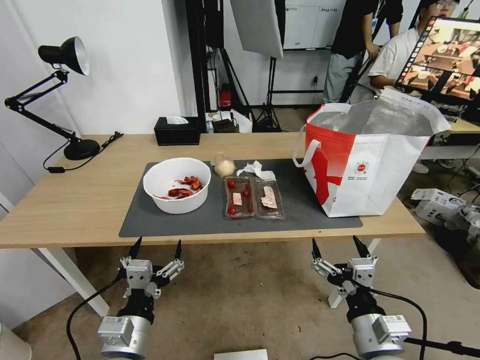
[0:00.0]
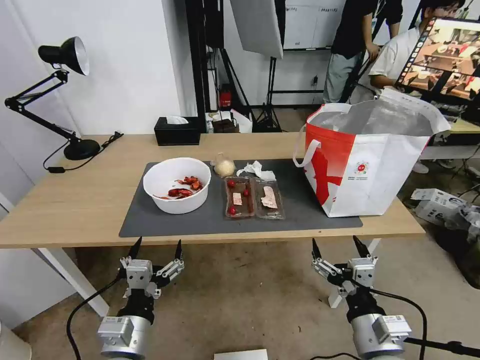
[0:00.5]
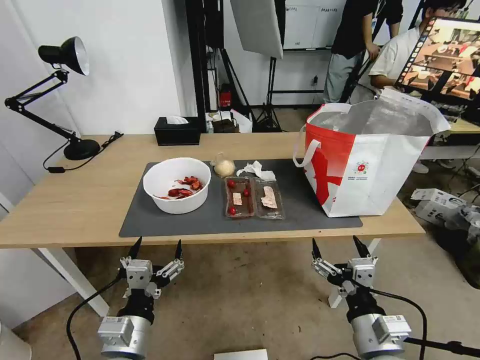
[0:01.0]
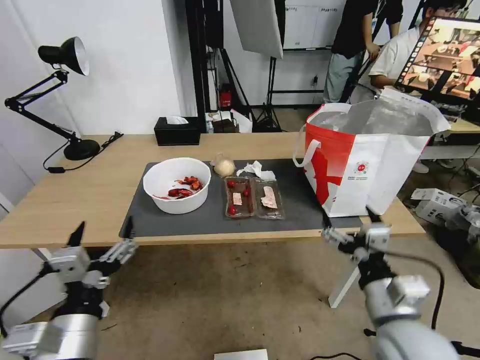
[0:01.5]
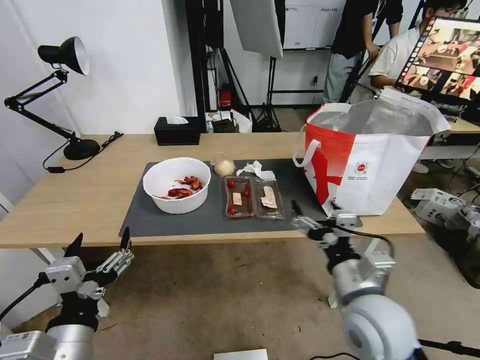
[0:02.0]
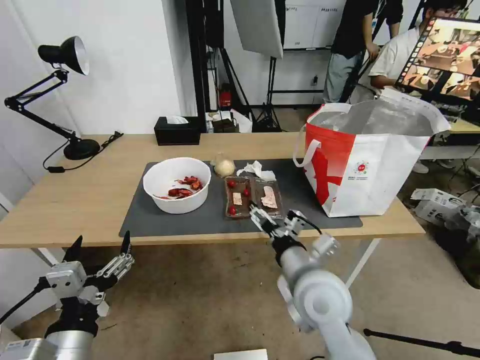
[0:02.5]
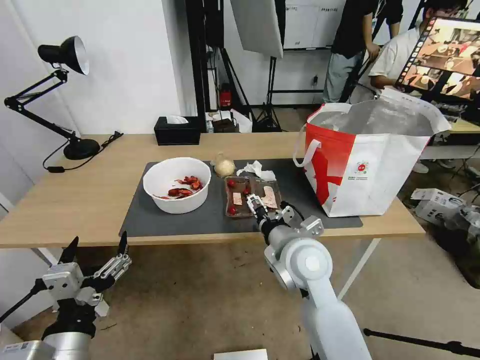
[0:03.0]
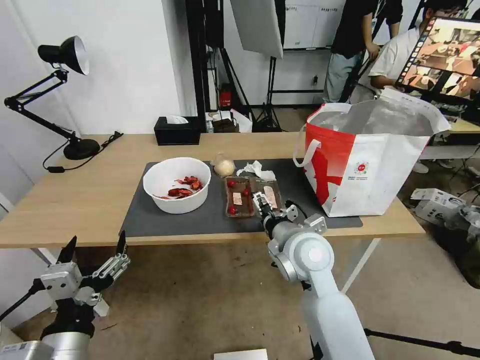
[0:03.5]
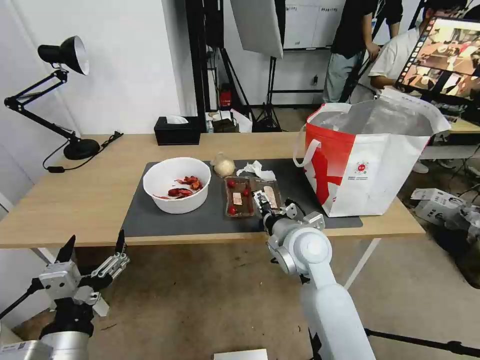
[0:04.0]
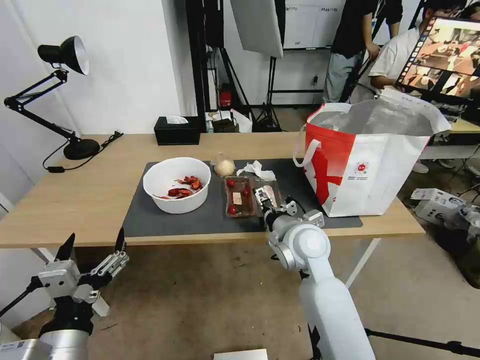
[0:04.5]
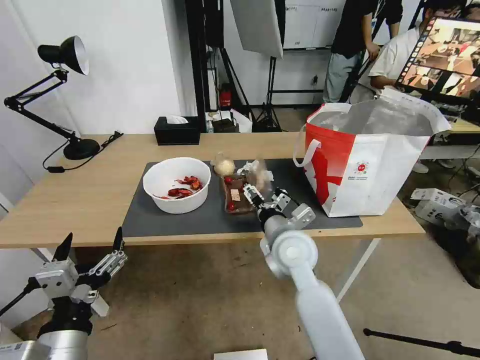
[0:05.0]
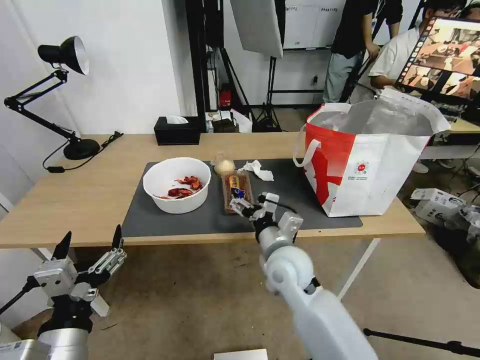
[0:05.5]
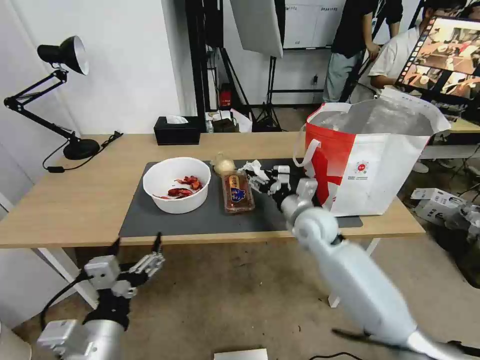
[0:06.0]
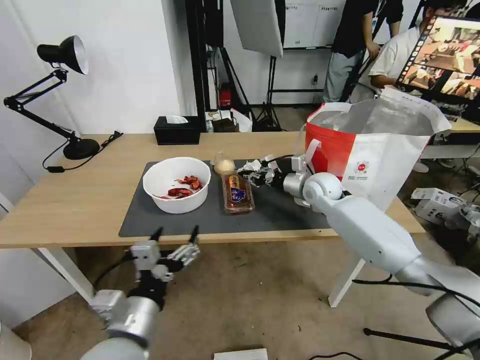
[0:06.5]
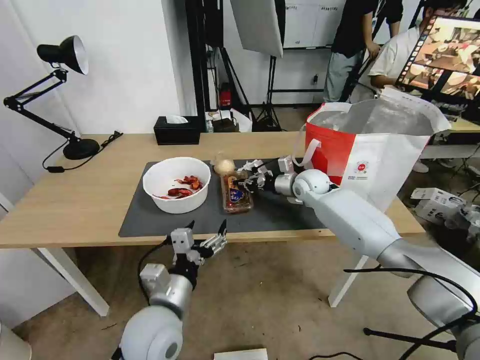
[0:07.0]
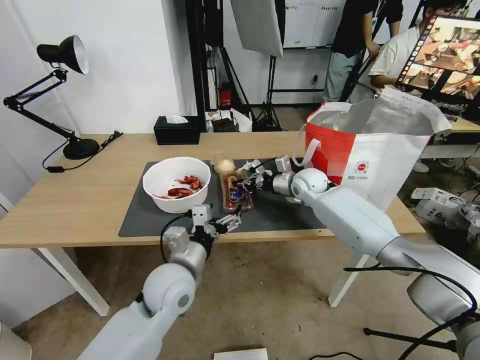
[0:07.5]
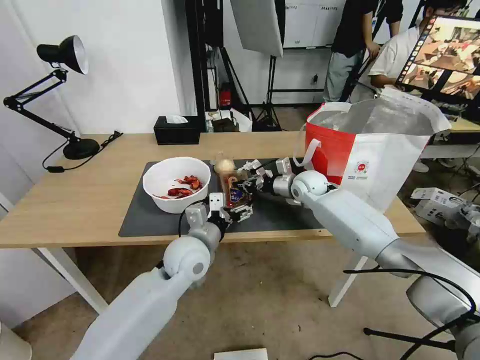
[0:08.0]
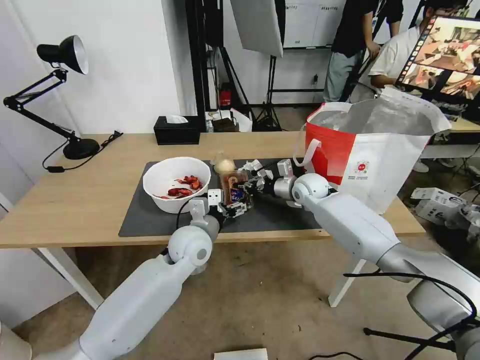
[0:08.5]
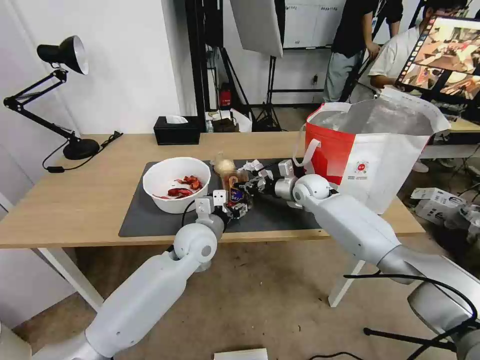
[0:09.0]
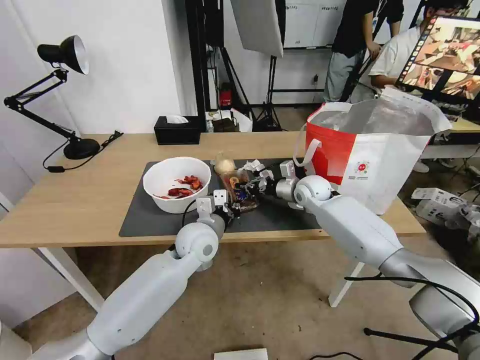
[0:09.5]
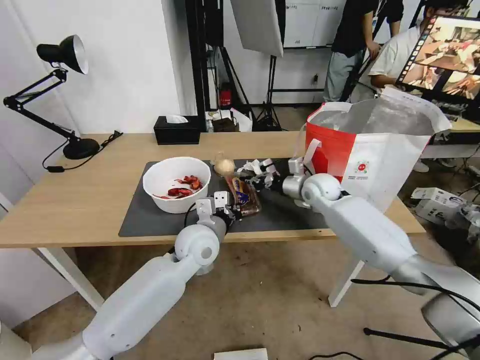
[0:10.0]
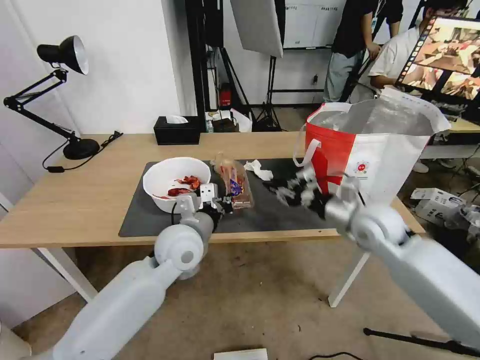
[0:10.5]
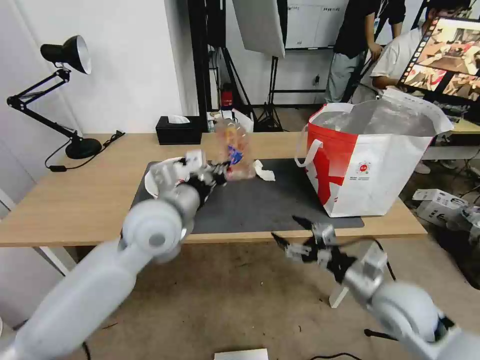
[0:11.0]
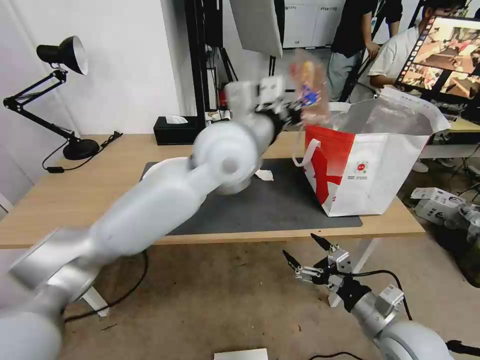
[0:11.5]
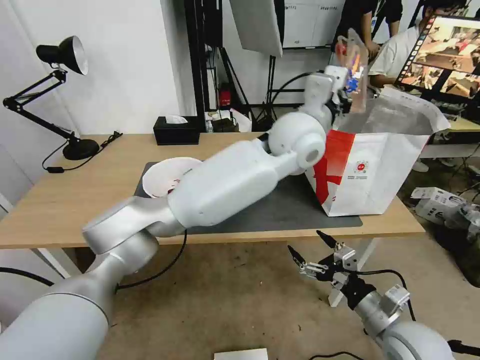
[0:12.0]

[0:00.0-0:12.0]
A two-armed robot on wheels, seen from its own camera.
Task of the whole recording: Pick up the trash from the table and place it into the takeout bag.
0:02.0 to 0:04.0: The right gripper moves forward and to the left, some 15 cm.
0:04.0 to 0:06.0: The right gripper is displaced forward by approximately 10 cm.
0:06.0 to 0:08.0: The left gripper is displaced forward and to the right by some 25 cm. The right gripper is displaced forward by approximately 15 cm, and closes up.
0:08.0 to 0:10.0: The left gripper closes.
0:10.0 to 0:12.0: The right gripper goes about 35 cm backward, and opens. The left gripper heads upward and to the right, covering roughly 30 cm.

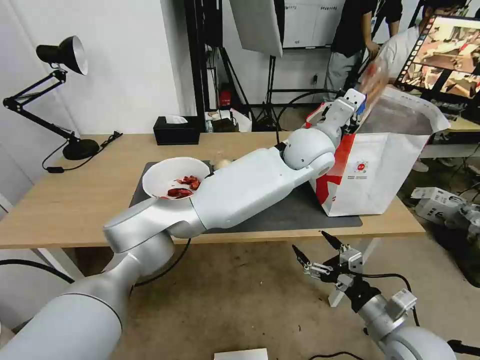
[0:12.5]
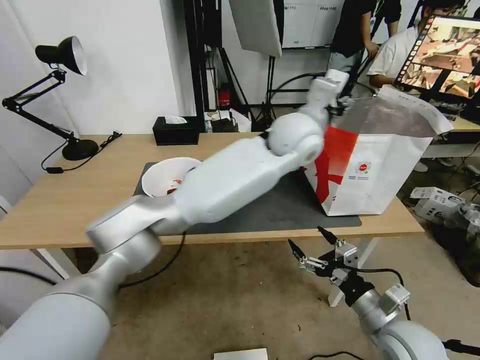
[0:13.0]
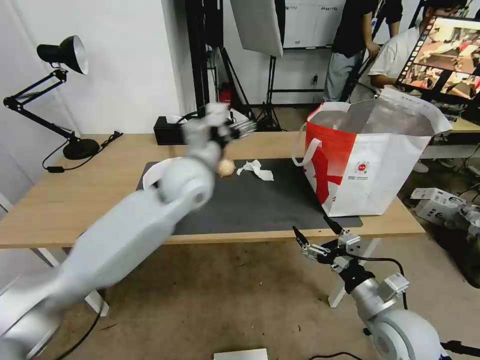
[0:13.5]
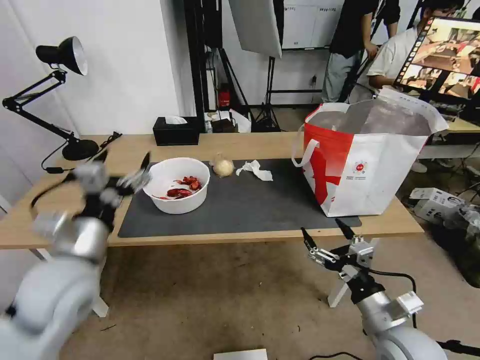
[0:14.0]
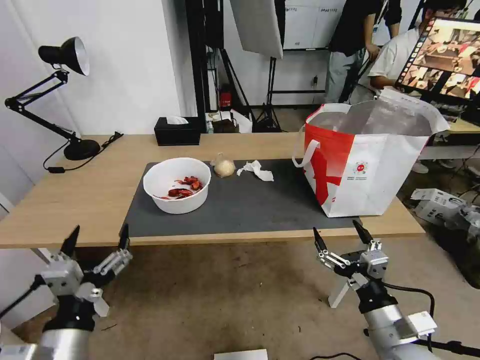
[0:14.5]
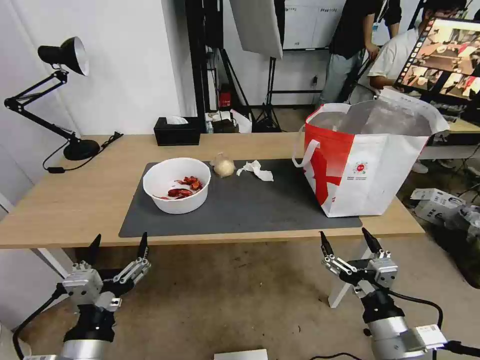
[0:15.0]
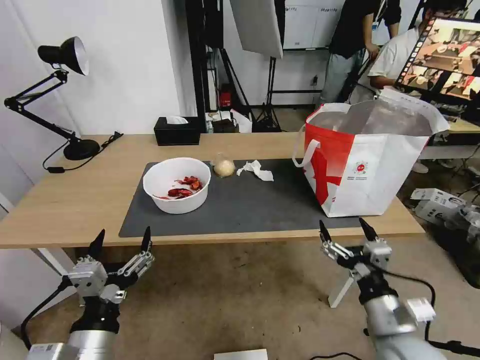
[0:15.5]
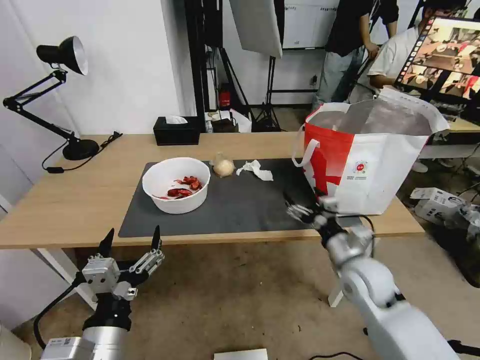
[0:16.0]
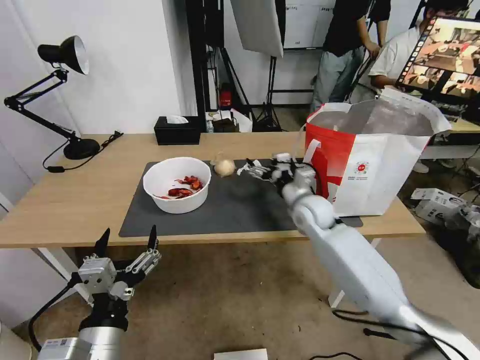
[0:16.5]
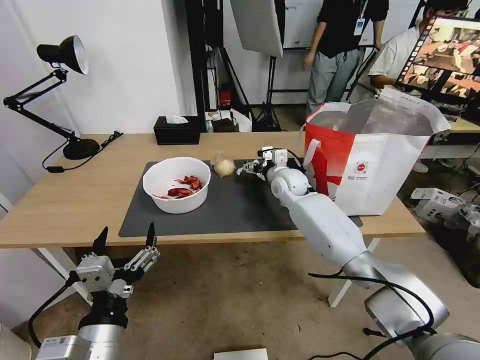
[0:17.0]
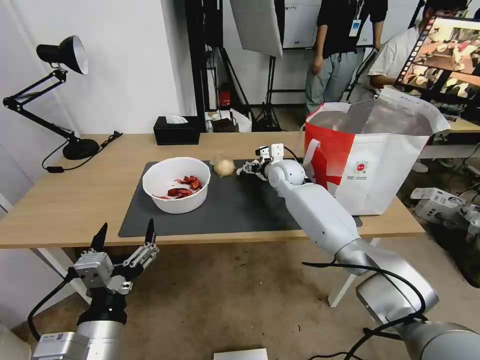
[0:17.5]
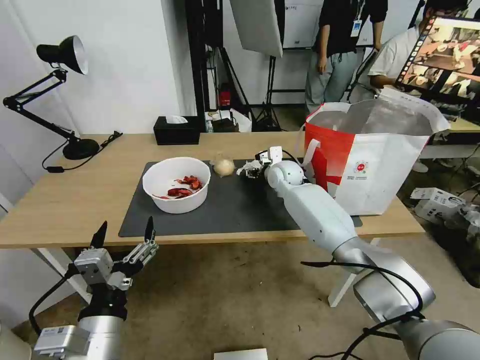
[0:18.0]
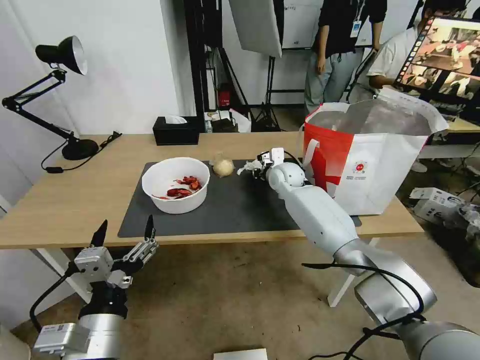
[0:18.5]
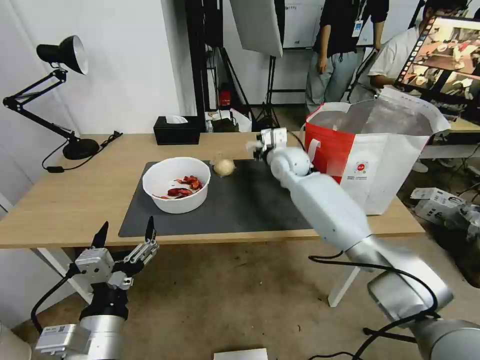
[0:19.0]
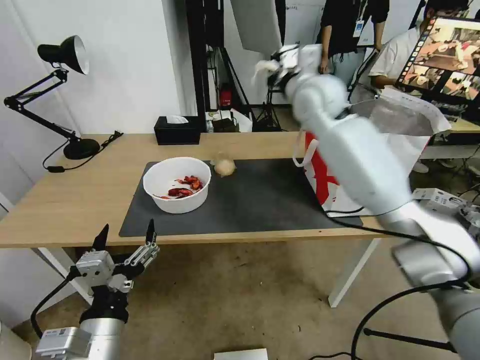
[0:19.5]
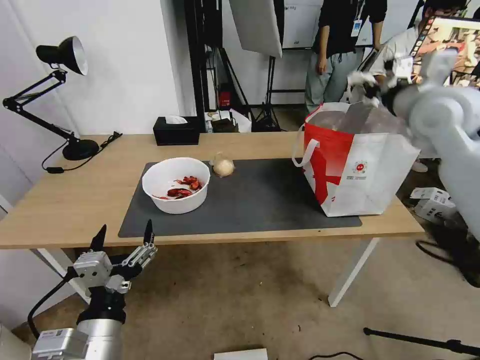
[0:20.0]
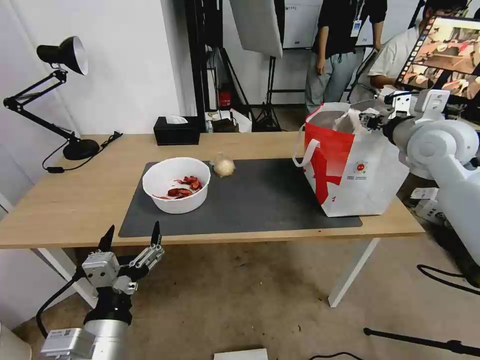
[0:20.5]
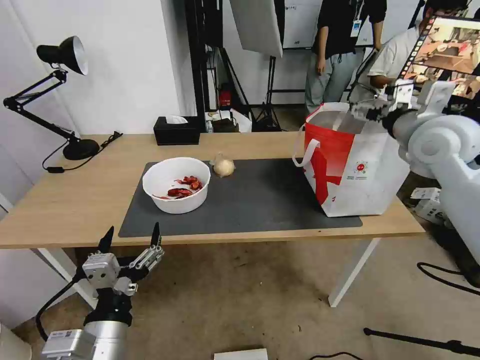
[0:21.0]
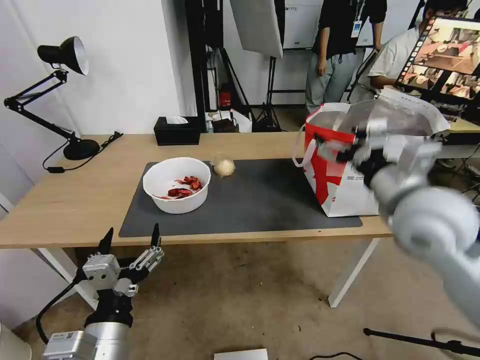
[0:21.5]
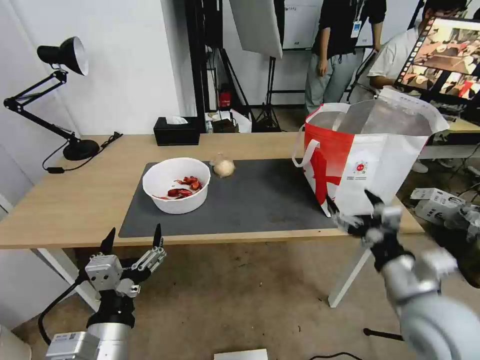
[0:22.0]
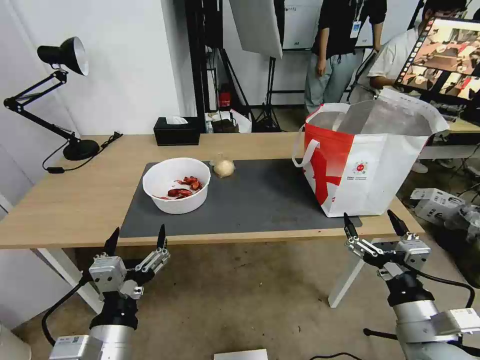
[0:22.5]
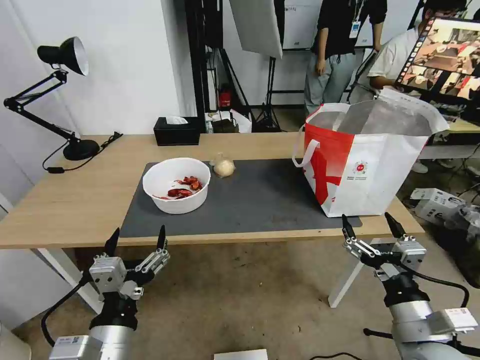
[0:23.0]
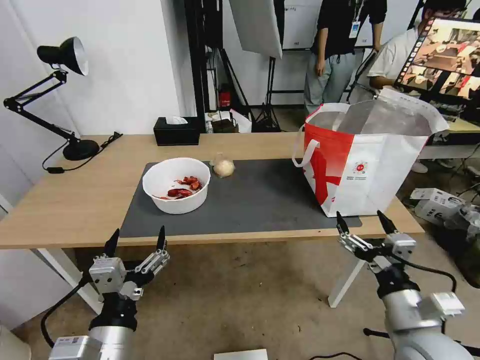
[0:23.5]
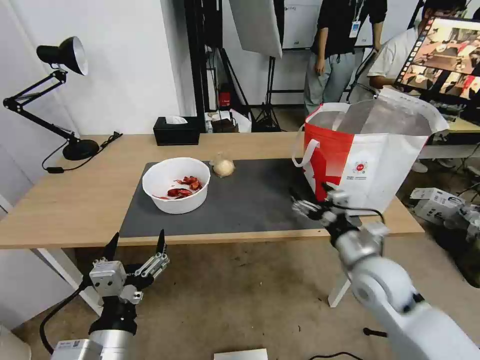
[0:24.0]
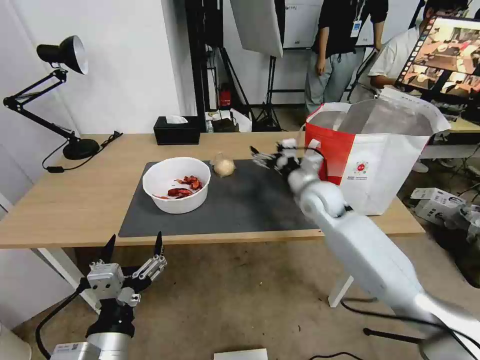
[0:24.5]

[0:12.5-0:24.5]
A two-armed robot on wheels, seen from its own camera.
Task of the whole recording: Pick up the trash from the table and place it into the takeout bag.
0:12.5 to 0:14.5: The left gripper moves to the left, backward and downward, some 60 cm, and opens up.
0:14.5 to 0:16.5: The left gripper shifts some 5 cm to the right, while the right gripper moves forward, some 35 cm.
0:16.5 to 0:18.5: The right gripper travels forward by about 10 cm, and closes its fingers.
0:18.5 to 0:20.5: The right gripper moves to the right, upward and backward, some 35 cm.
0:20.5 to 0:22.5: The right gripper moves backward and downward, about 35 cm, and opens.
0:22.5 to 0:24.5: The right gripper heads forward, covering approximately 35 cm.

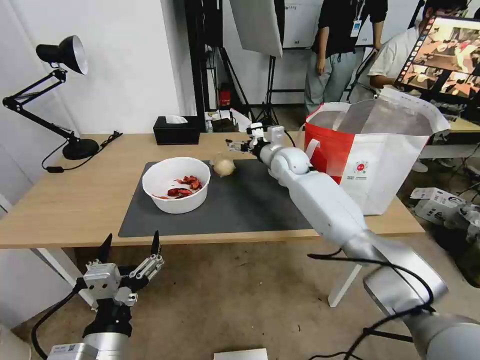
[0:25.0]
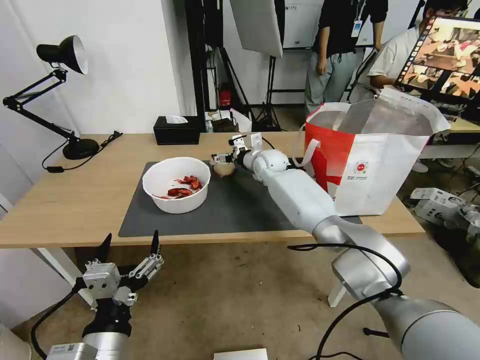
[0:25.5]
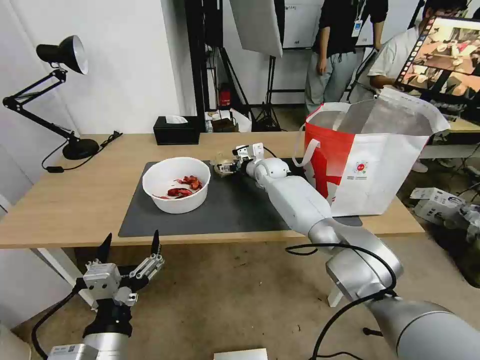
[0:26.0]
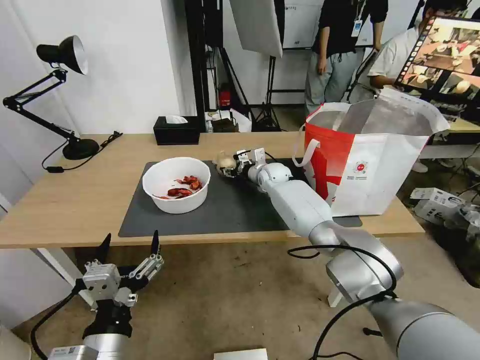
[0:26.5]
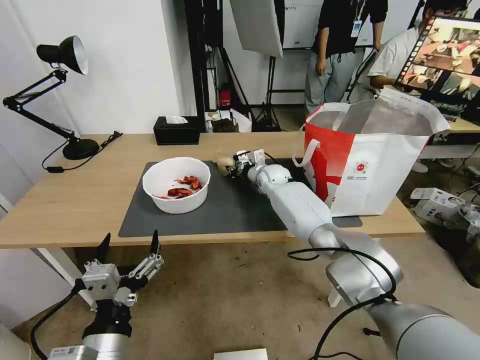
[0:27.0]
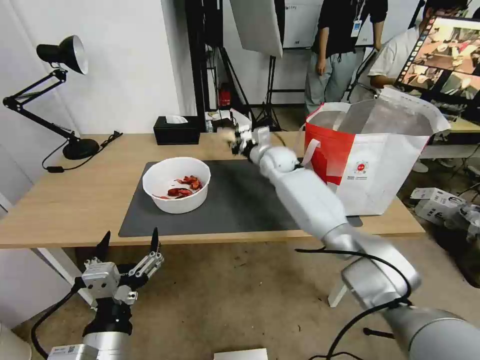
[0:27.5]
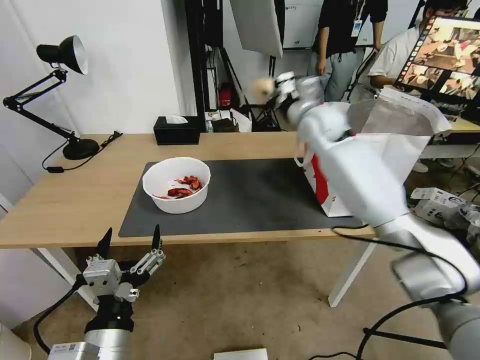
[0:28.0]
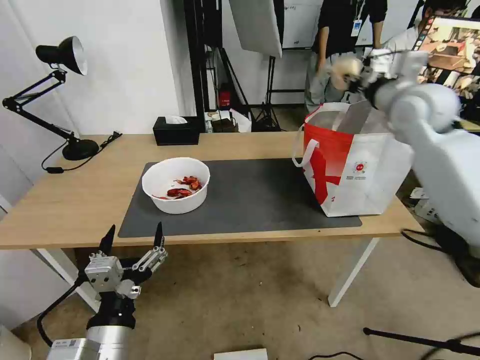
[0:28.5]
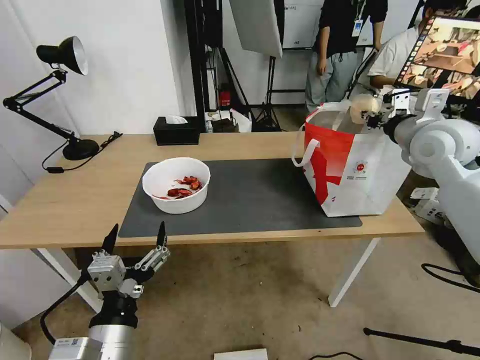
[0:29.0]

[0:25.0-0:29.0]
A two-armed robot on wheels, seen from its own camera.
Task of the whole recording: Pick up the trash from the table and place it into the takeout bag.
0:25.0 to 0:27.0: The right gripper shifts some 10 cm downward, and closes its fingers.
0:27.0 to 0:29.0: The right gripper goes roughly 40 cm to the right, upward and backward.
